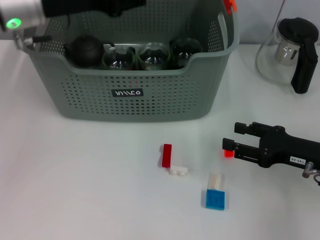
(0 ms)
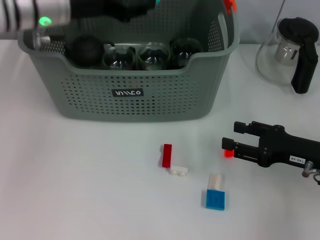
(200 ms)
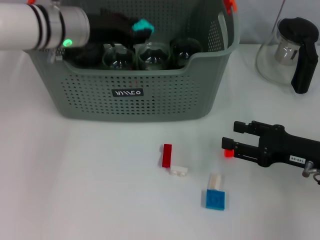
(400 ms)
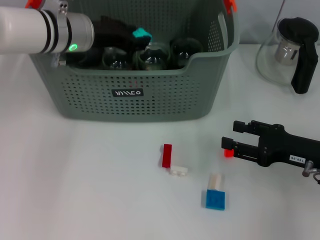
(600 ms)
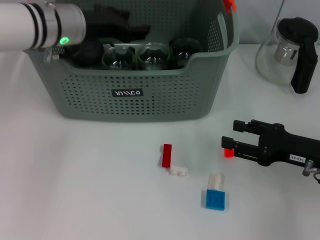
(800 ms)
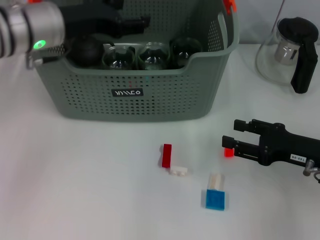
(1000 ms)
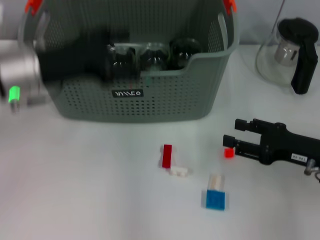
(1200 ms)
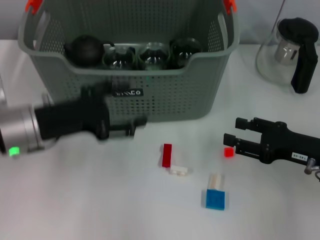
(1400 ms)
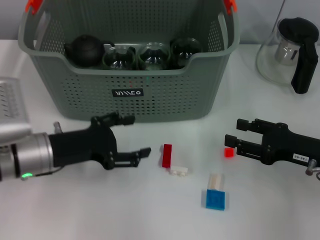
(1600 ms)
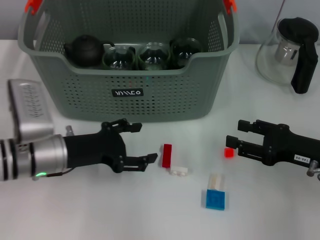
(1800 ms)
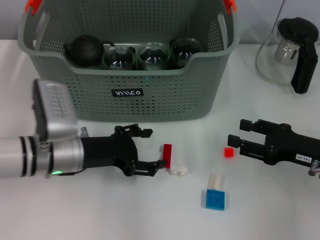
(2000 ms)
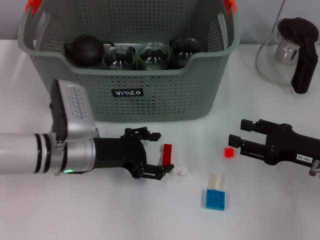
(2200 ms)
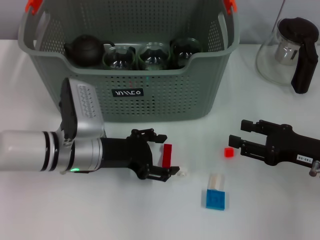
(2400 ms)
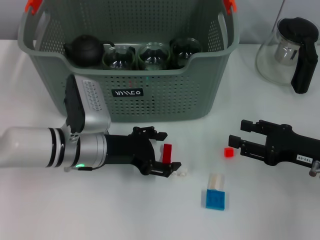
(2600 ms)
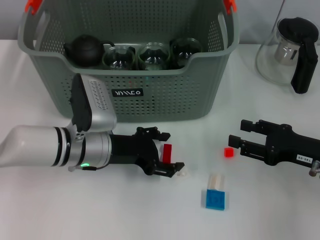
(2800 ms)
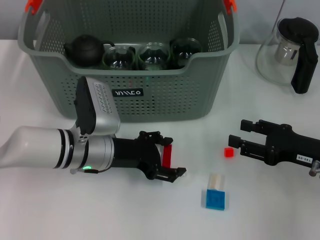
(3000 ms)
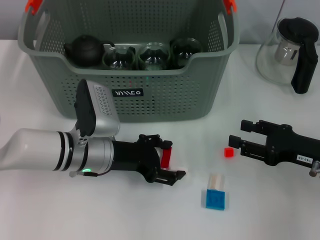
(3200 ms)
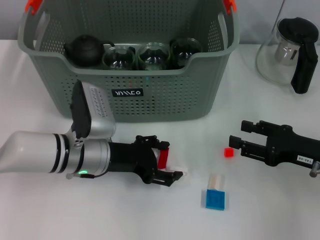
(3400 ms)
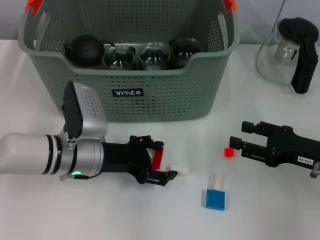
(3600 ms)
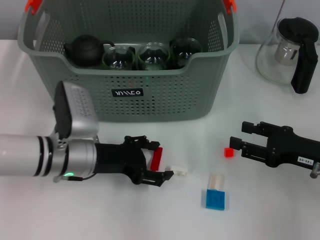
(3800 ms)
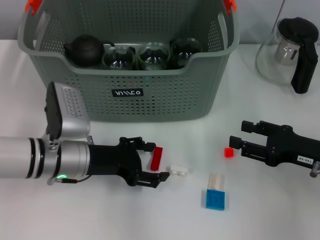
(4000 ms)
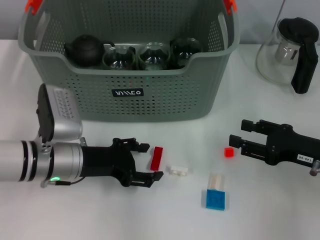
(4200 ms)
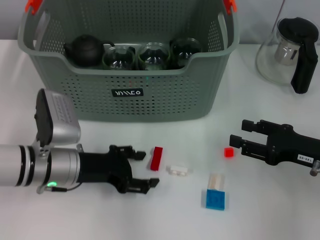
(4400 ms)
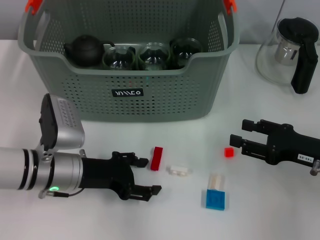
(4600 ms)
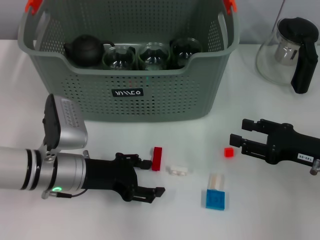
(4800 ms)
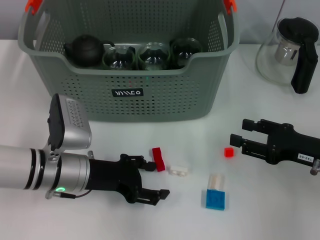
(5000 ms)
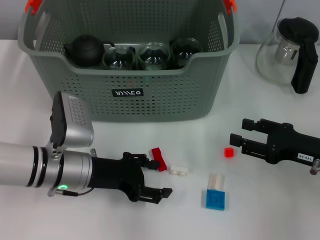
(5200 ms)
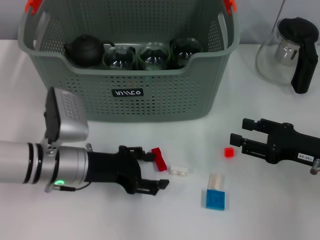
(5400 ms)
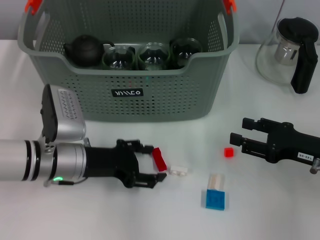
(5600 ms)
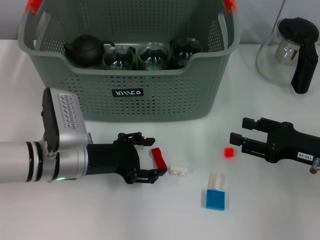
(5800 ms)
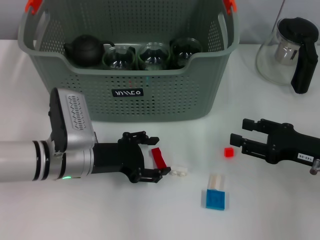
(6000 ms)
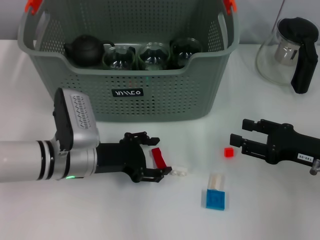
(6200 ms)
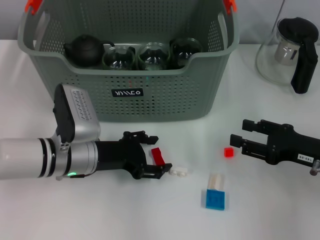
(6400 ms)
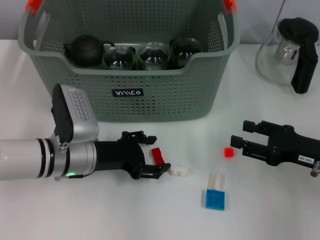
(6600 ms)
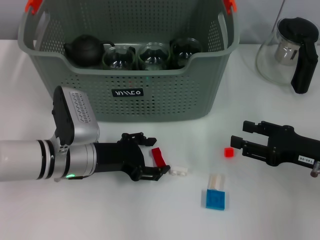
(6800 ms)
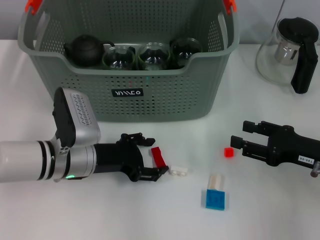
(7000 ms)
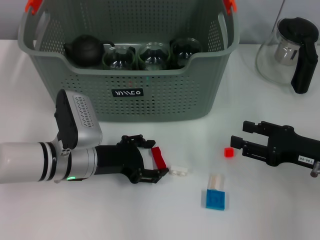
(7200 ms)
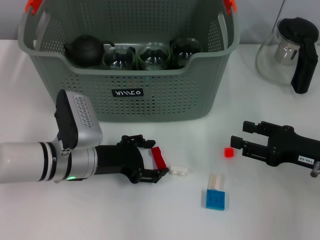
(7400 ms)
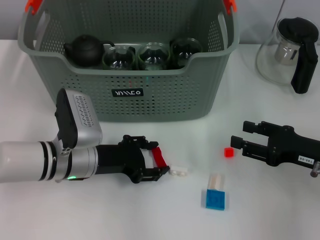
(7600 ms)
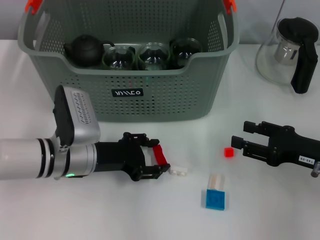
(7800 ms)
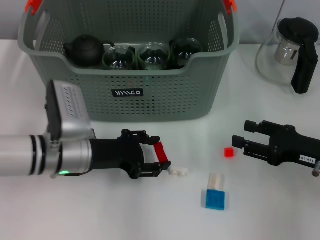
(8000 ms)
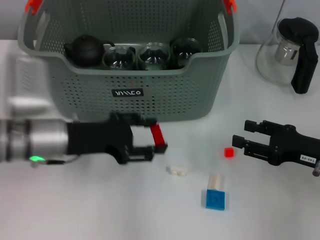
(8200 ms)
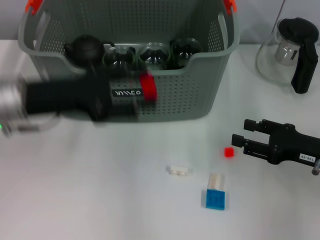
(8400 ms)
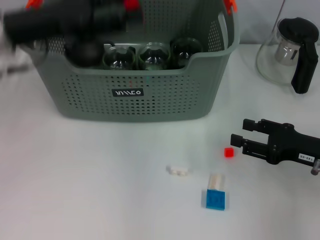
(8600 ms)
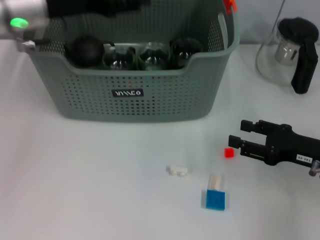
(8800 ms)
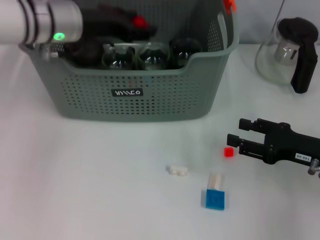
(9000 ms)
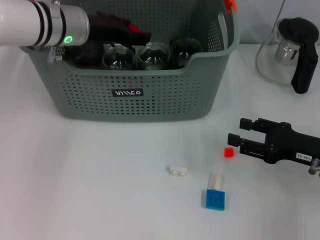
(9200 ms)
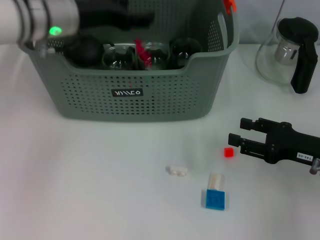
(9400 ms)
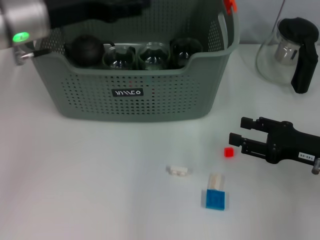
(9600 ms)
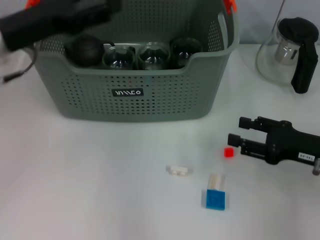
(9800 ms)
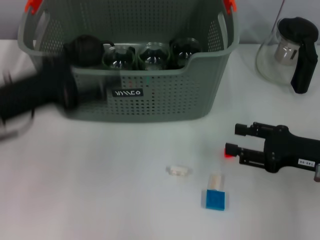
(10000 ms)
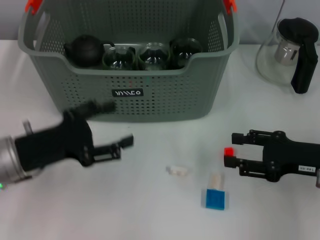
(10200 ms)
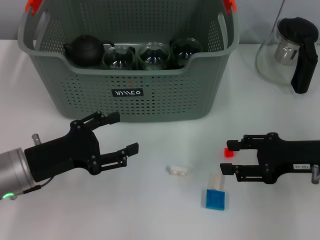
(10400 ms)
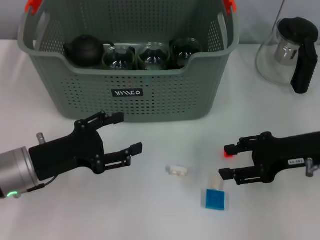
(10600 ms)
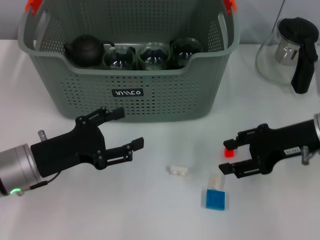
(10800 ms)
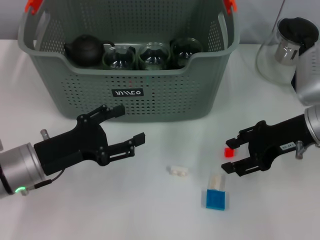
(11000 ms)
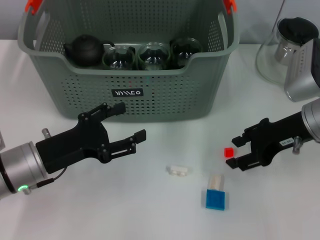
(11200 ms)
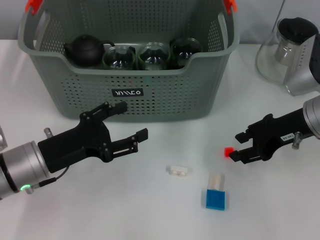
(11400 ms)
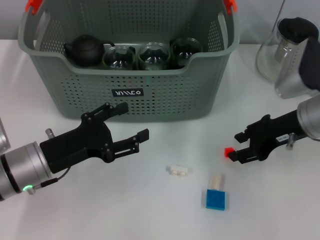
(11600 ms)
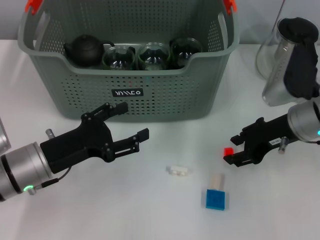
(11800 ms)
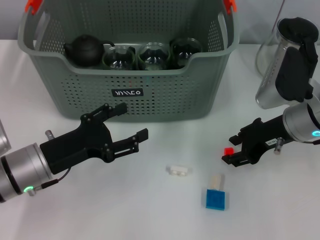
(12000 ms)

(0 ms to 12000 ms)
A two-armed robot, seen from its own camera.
Task of the whole recording: pick up the teacup on the table and place it into the storage bin, pick up the block on the table and place it into the storage bin.
Step, 1000 ms - 7600 ms: Grasp the red block with left gripper.
Step, 7800 ms - 9400 ms: Place the red block in the storage box with left gripper.
0 ms - 1600 ms: The left gripper goes some 20 cm downward and backward, and opens up.
1600 ms - 3000 ms: The left gripper heads to the right, covering approximately 10 cm.
3000 ms - 4400 ms: The left gripper changes place by some 5 cm.
4400 ms - 7600 ms: The grippers stay close to where they were, moving slightly.
7600 ms - 9000 ms: The left gripper travels upward and forward by roughly 20 cm.
9000 ms - 10400 ms: The left gripper heads backward and downward, covering some 20 cm.
10400 ms - 12000 ms: The right gripper moves forward and to the left, approximately 10 cm.

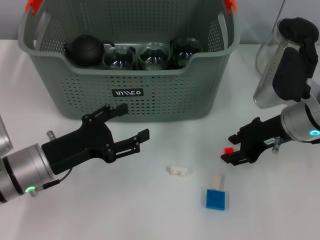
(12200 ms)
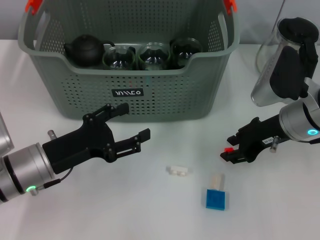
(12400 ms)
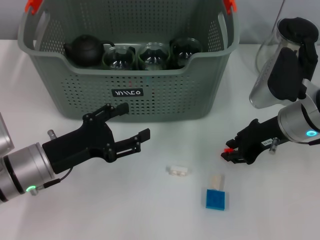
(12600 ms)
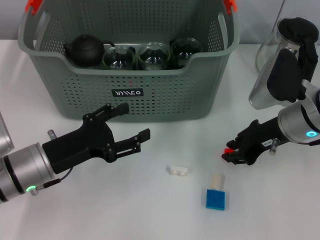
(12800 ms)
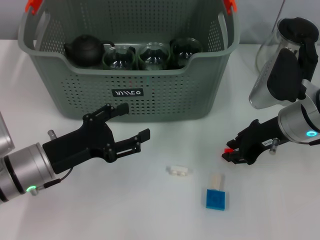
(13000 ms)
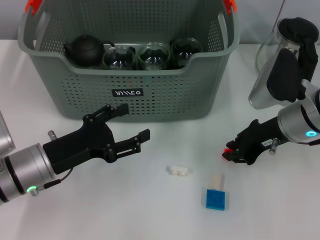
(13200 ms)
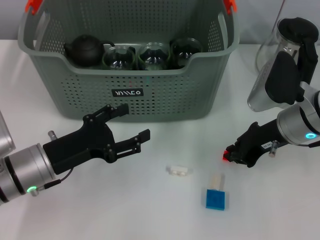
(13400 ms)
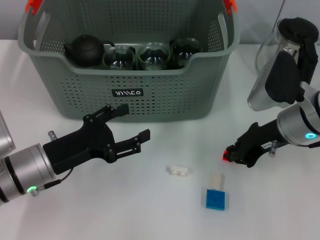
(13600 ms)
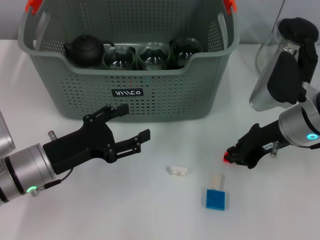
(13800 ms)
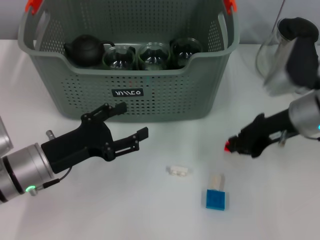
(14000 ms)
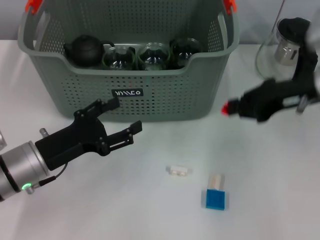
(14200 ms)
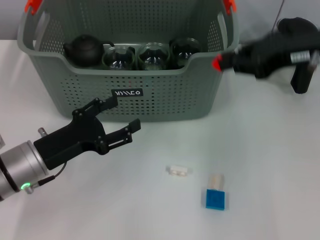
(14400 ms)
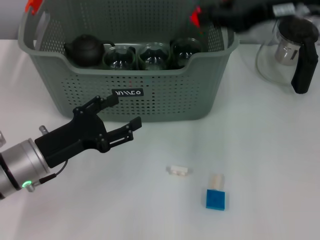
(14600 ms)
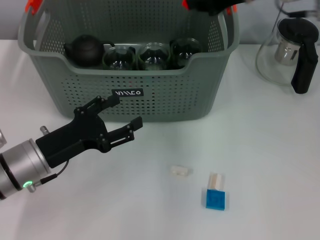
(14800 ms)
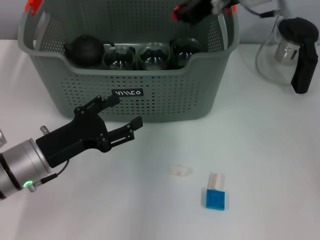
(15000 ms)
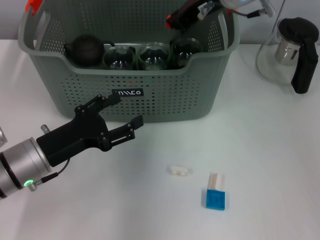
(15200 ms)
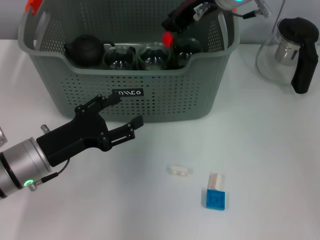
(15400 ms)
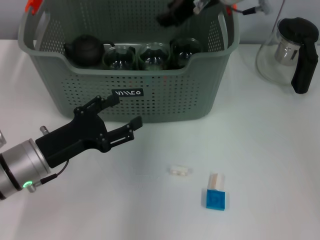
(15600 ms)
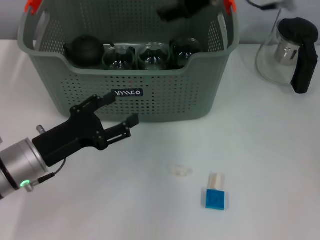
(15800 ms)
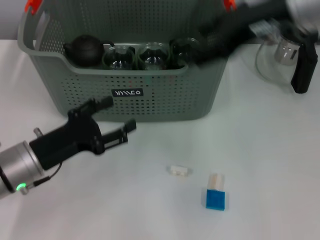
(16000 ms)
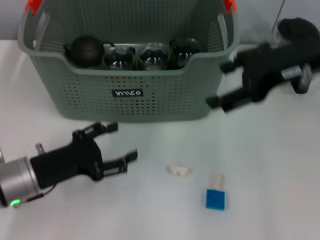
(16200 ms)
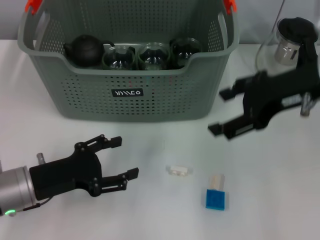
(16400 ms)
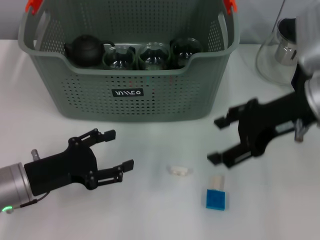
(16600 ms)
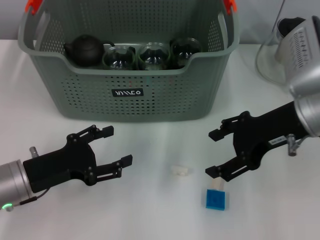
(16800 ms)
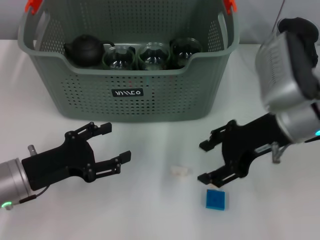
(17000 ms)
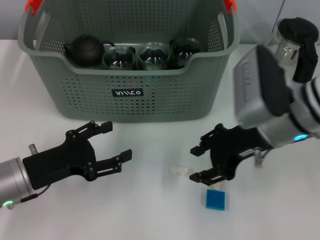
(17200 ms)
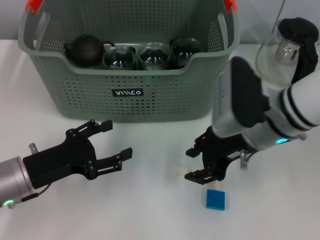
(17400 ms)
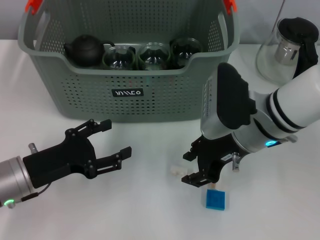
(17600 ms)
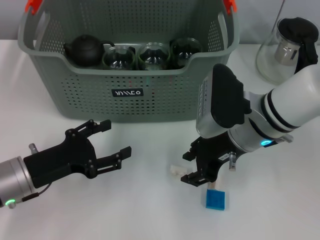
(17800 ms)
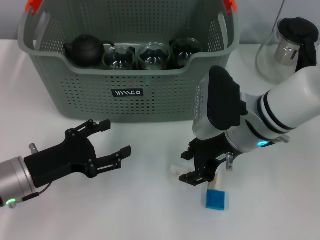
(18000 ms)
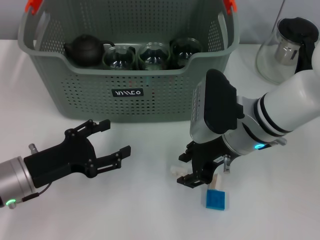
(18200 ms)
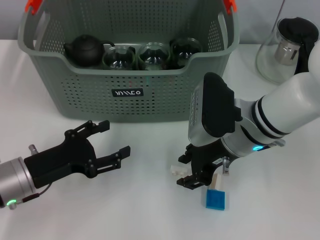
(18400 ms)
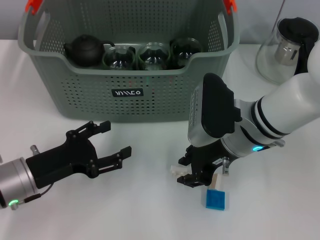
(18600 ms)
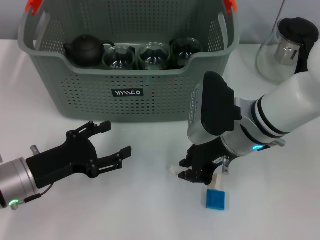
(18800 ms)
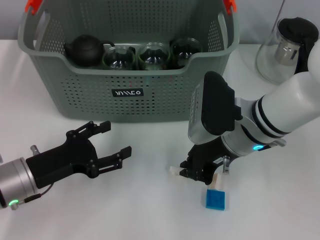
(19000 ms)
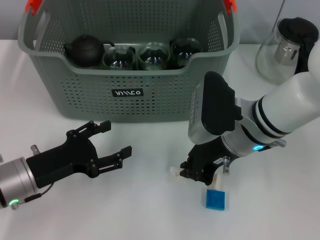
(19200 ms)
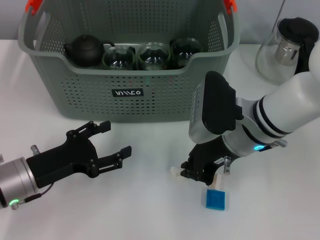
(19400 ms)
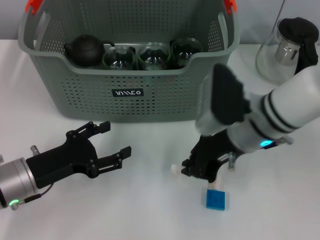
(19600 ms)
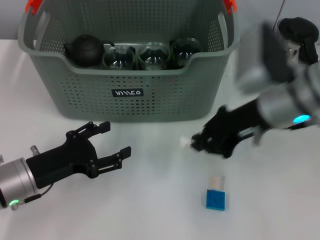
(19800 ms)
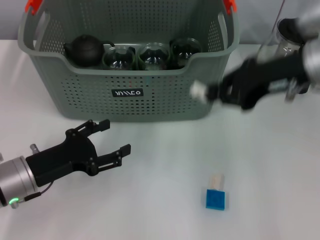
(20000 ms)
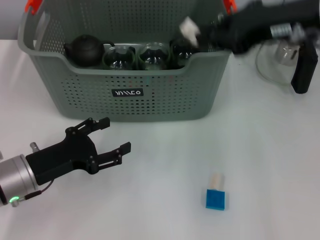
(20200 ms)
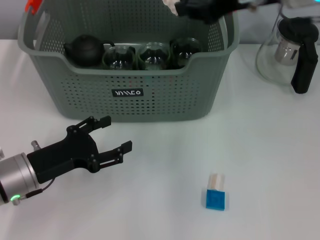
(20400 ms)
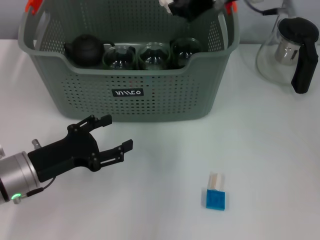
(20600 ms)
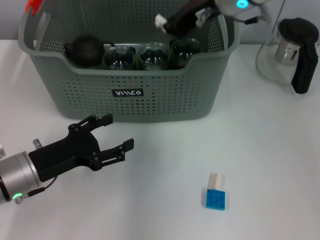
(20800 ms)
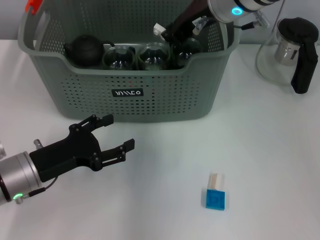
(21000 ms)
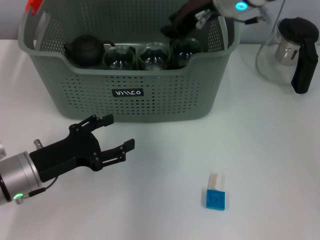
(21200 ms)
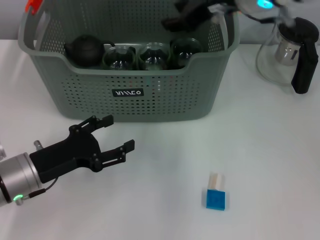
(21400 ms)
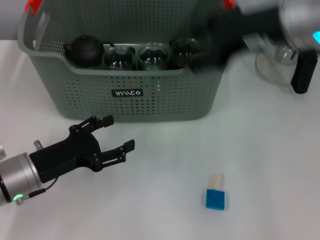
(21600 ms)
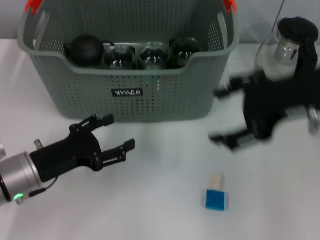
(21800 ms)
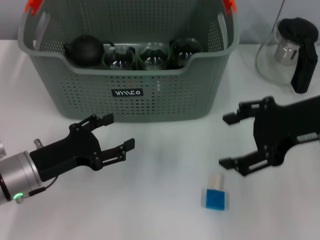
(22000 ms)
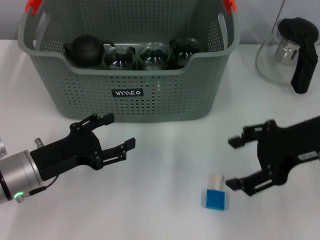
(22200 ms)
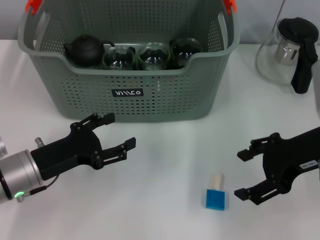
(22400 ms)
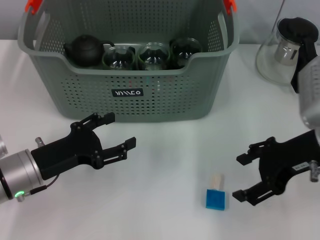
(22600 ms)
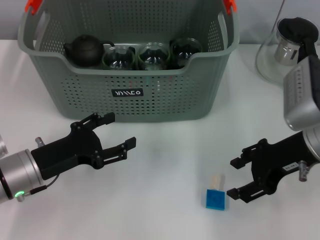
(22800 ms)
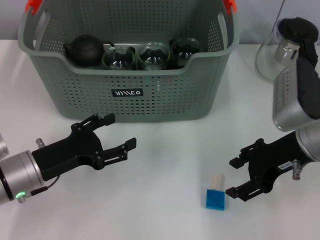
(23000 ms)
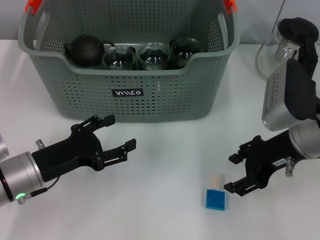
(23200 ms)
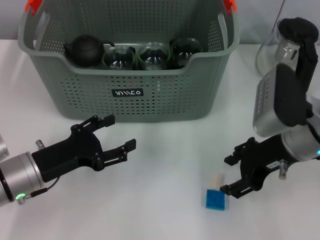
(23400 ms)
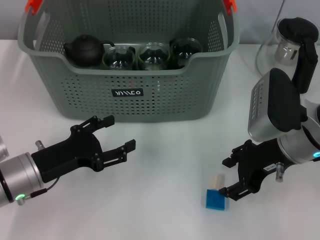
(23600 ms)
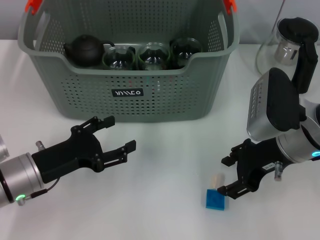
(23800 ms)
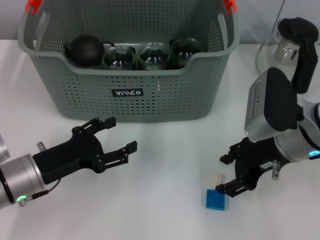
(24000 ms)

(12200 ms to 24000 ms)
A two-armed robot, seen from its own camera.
Task of the whole recording: pick up the teacup on the table and place it into the storage bin, pick up the block on the table and place it into the storage bin.
Step, 13800 ms - 15400 ms: Place the orange block in the storage box with right gripper.
Step, 15600 ms - 18800 ms: Grasp the white block with right gripper.
Step, 19000 ms - 21000 ms: Place the white block in the storage box with right gripper.
12200 ms - 13600 ms: The right gripper closes its fingers.
13600 ms - 15200 ms: The right gripper travels upward, to the left and forward by approximately 20 cm.
15200 ms - 16600 ms: The right gripper moves backward and to the right, roughly 15 cm, and opens.
16600 ms - 18200 ms: The right gripper travels downward and to the left by approximately 10 cm, and closes its fingers.
18200 ms - 19600 ms: The right gripper closes.
19600 ms - 21000 ms: The right gripper is displaced upward and forward by approximately 15 cm.
21000 ms - 22600 ms: The right gripper shifts about 20 cm to the right, backward and downward, and opens its fingers.
22600 ms - 24000 ms: The right gripper ends up roughly 5 cm from where it was.
